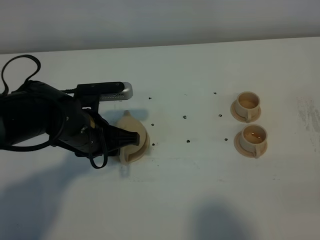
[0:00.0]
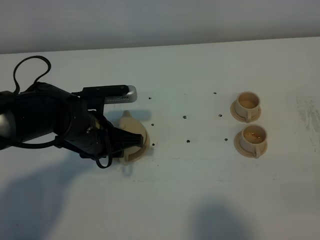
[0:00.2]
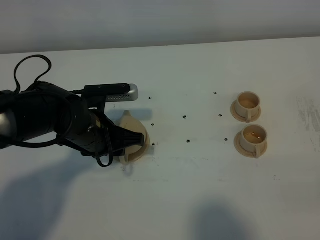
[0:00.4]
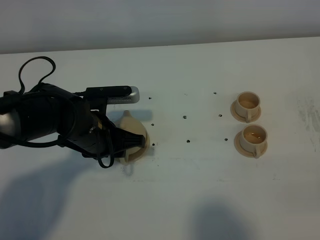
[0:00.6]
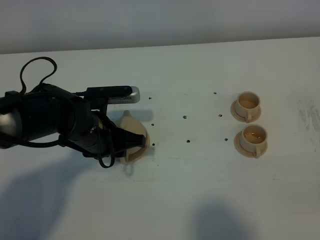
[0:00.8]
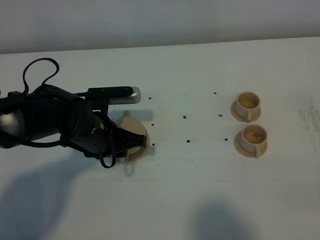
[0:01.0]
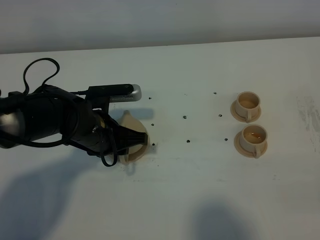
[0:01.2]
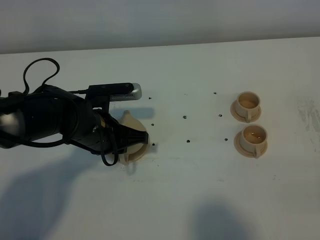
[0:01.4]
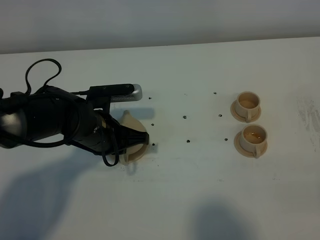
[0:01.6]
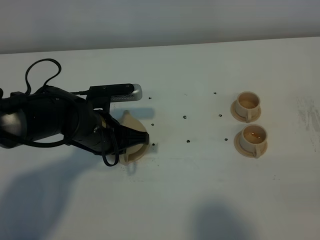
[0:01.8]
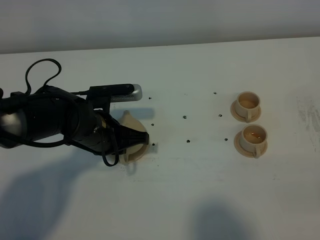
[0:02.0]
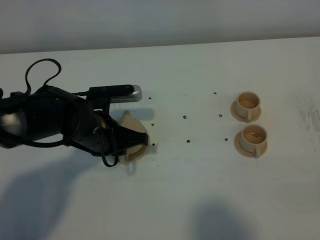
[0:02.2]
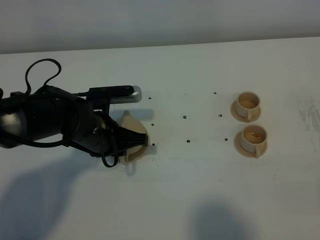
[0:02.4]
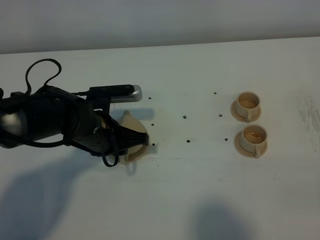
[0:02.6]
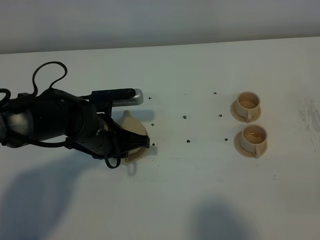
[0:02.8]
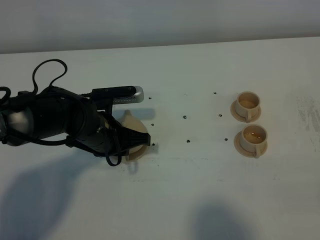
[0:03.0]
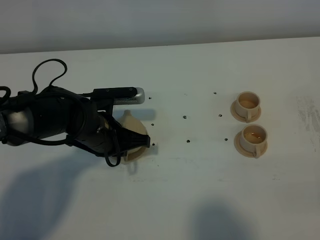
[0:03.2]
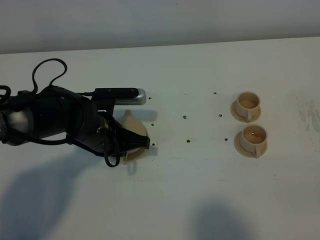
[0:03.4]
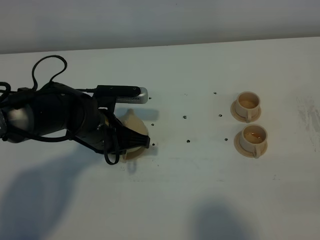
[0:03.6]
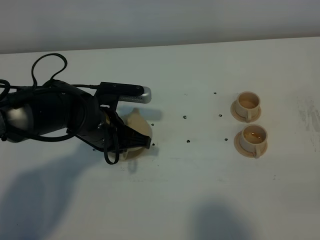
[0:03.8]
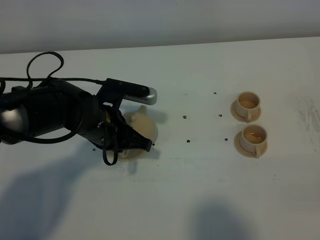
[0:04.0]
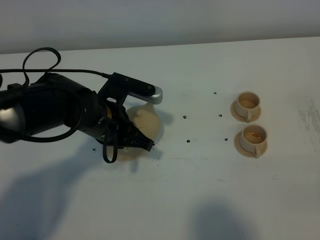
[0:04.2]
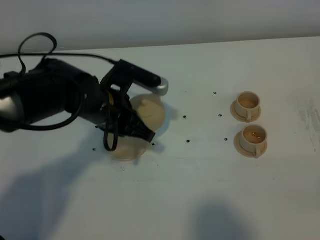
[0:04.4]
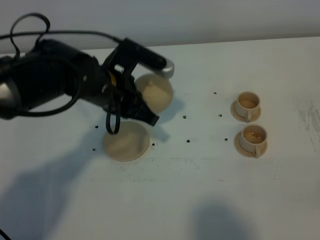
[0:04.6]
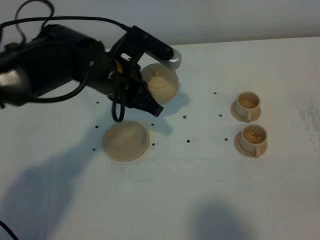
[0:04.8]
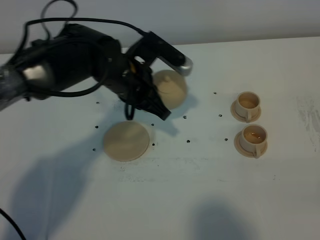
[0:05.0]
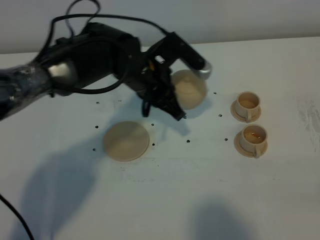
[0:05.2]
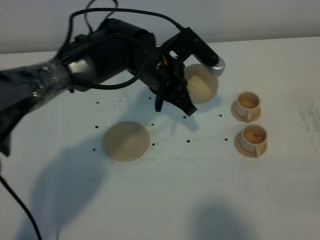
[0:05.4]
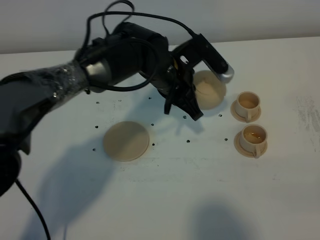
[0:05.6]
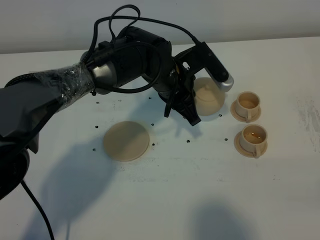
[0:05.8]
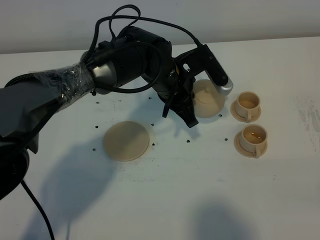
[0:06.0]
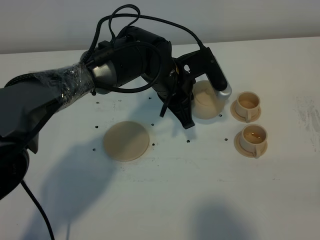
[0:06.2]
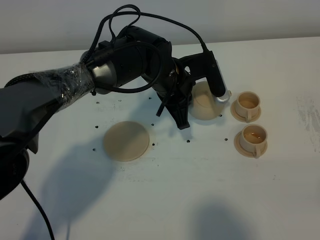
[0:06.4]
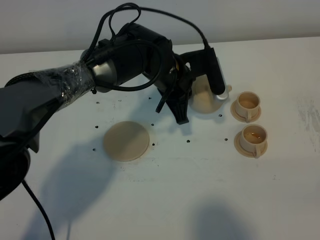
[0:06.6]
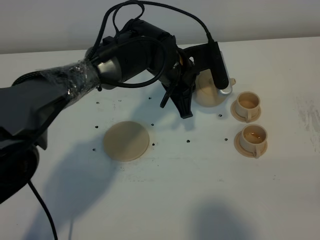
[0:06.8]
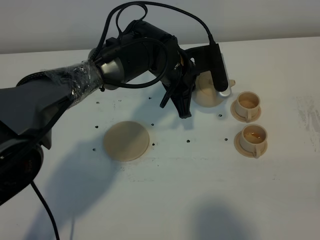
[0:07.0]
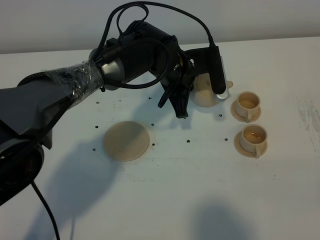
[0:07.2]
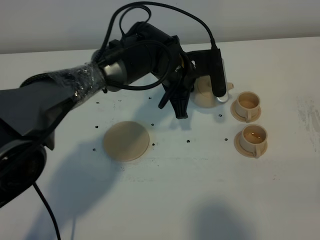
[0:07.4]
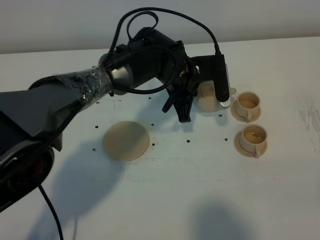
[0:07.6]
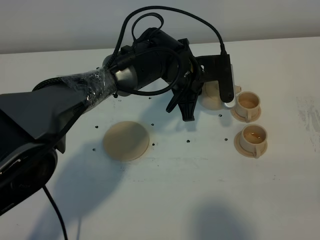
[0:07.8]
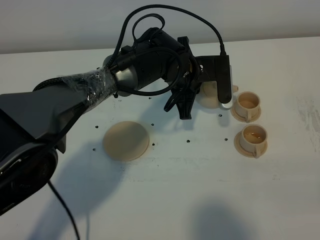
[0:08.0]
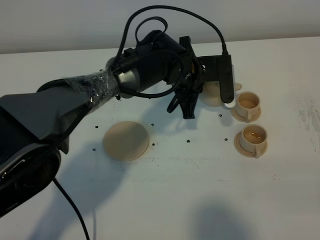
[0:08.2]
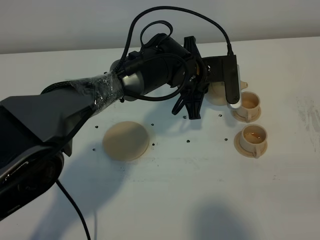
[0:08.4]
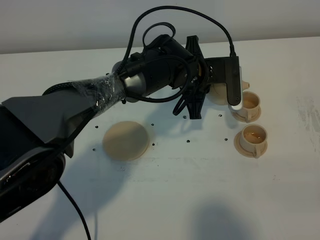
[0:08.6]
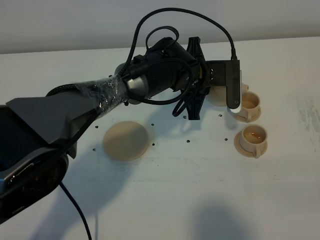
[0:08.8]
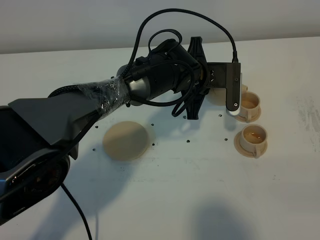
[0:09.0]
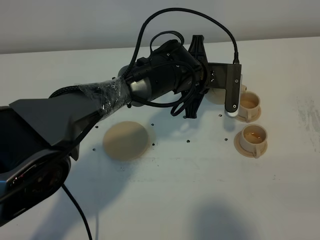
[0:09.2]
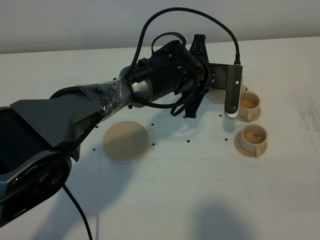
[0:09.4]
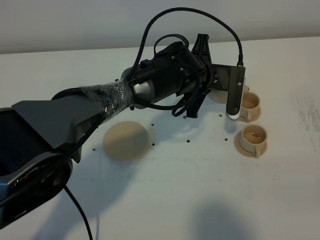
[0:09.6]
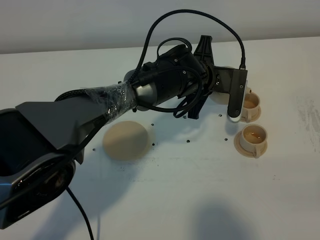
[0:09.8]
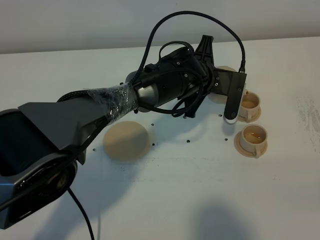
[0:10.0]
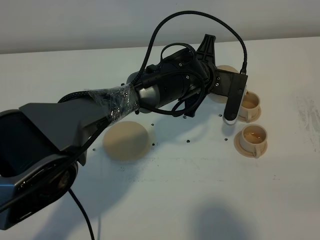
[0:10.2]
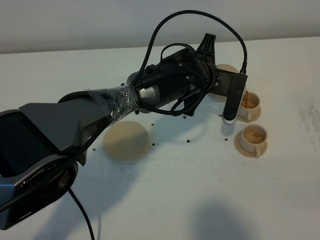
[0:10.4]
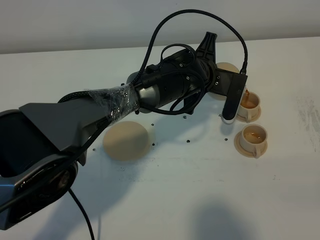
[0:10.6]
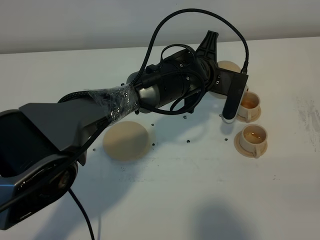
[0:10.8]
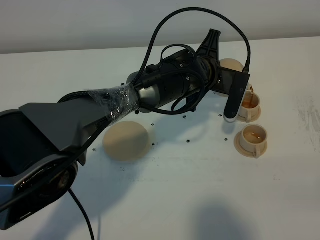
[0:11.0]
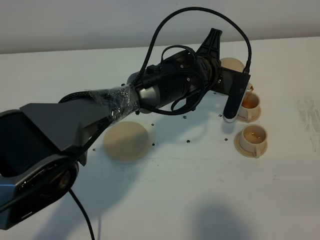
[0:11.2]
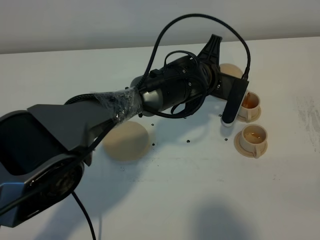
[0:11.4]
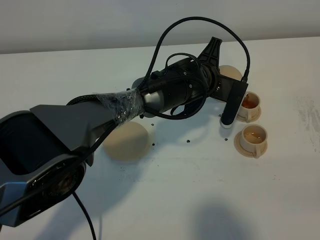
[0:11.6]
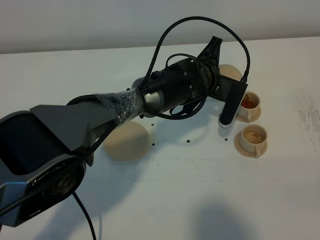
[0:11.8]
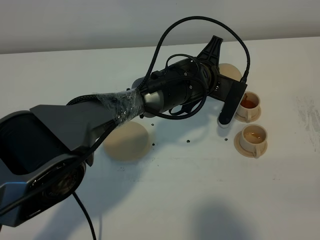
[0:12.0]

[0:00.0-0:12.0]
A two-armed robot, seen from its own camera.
Task of the whole recording: grasp the brown teapot and pour the tea into the two brown teacups one by one, put the brown teapot back in its original place.
Step, 0:00.0 to 0:03.2: Pick up the teapot with the left gripper.
0:00.0 to 0:01.6: The left gripper closes up.
0:01.6 to 0:03.0: Neither gripper changes place.
0:03.0 to 0:04.4: The left gripper moves upward, roughly 5 cm.
0:04.4 to 0:06.0: The left gripper travels to the right and forward by some 10 cm.
0:09.0 to 0:10.4: The grippers make only small movements.
0:10.4 to 0:12.0: The grippers move only a little.

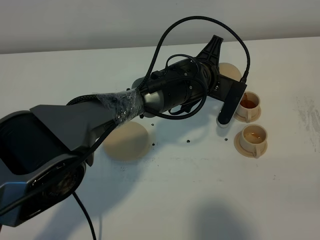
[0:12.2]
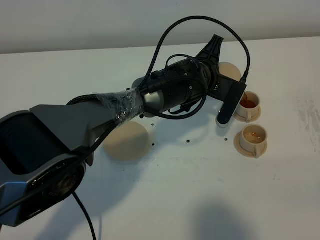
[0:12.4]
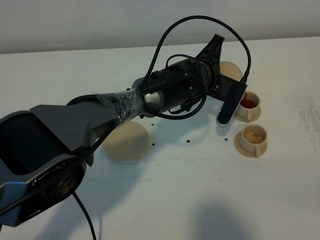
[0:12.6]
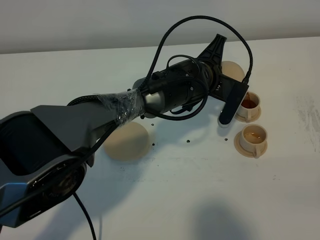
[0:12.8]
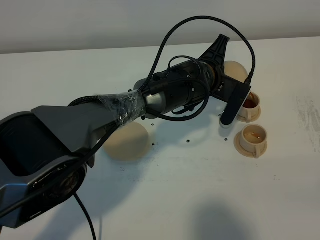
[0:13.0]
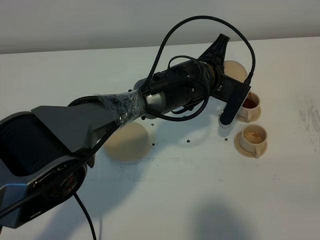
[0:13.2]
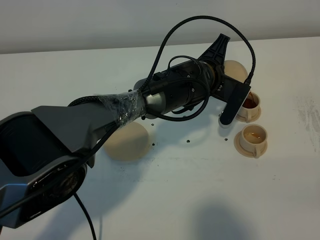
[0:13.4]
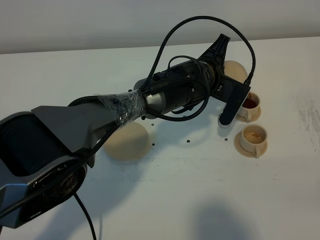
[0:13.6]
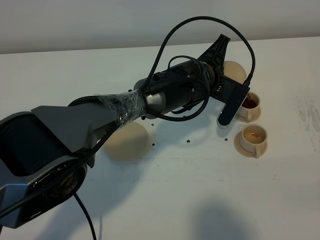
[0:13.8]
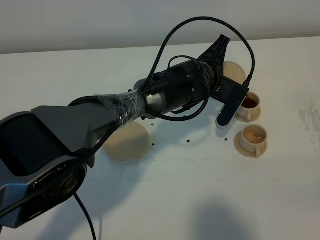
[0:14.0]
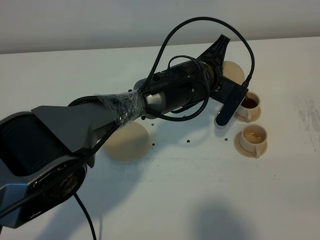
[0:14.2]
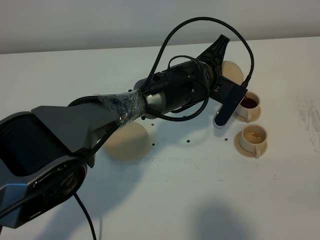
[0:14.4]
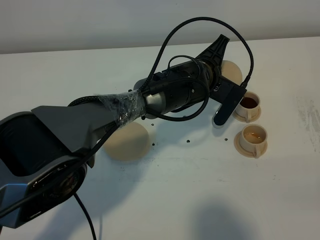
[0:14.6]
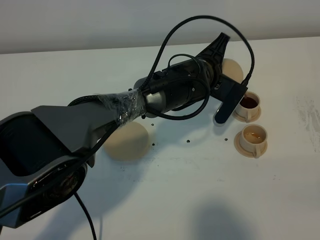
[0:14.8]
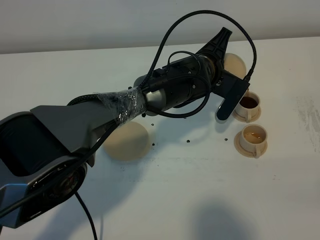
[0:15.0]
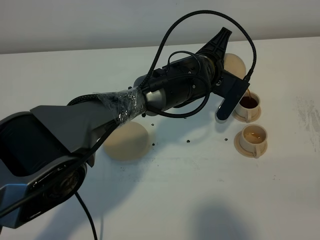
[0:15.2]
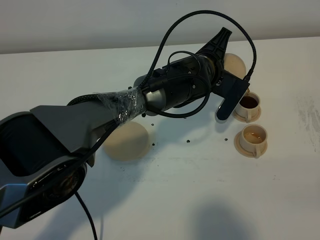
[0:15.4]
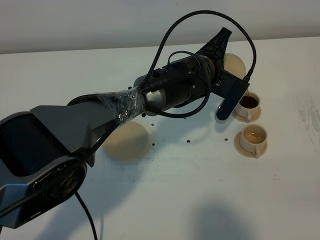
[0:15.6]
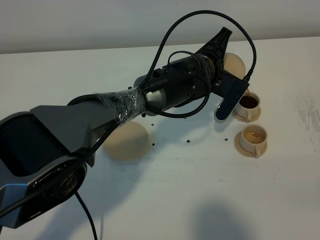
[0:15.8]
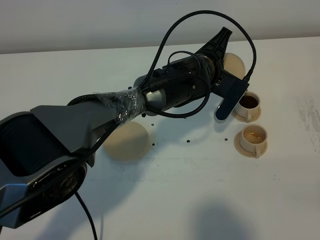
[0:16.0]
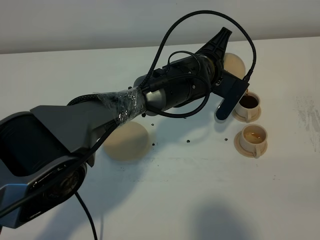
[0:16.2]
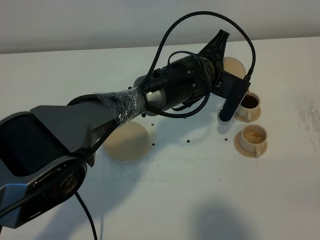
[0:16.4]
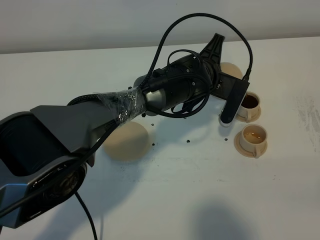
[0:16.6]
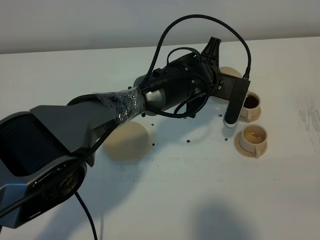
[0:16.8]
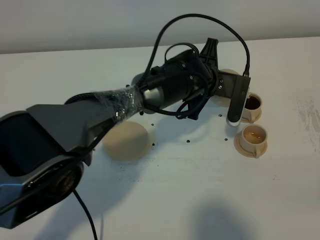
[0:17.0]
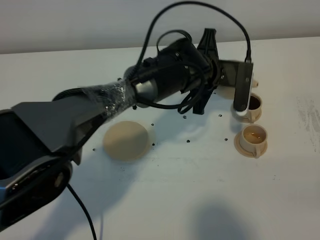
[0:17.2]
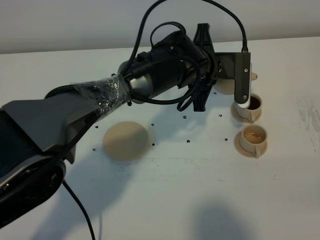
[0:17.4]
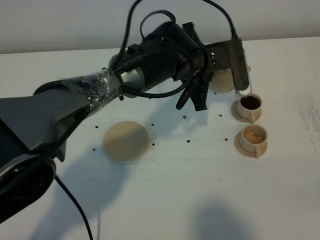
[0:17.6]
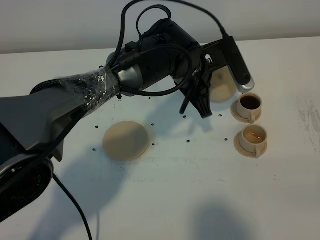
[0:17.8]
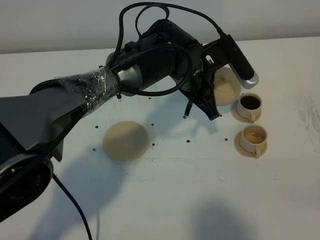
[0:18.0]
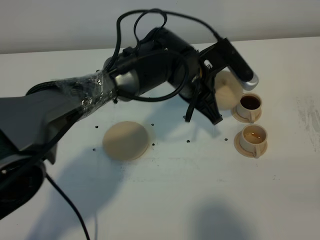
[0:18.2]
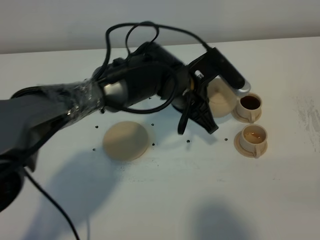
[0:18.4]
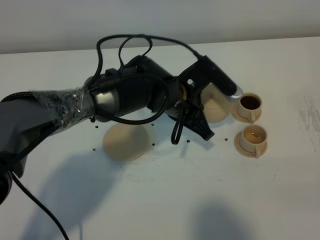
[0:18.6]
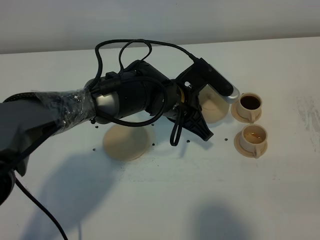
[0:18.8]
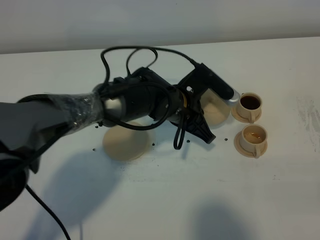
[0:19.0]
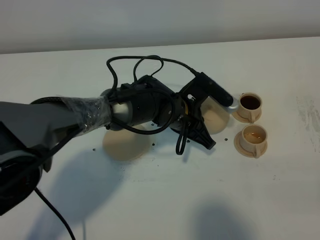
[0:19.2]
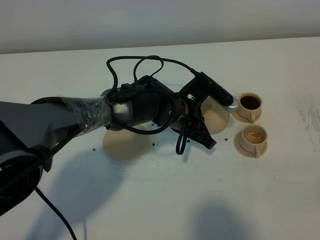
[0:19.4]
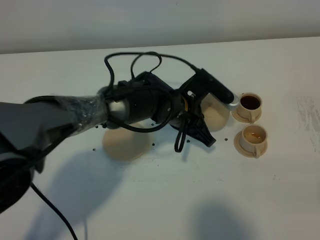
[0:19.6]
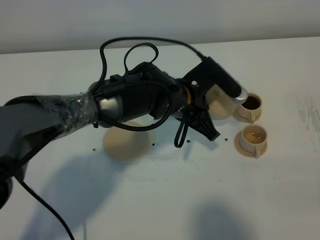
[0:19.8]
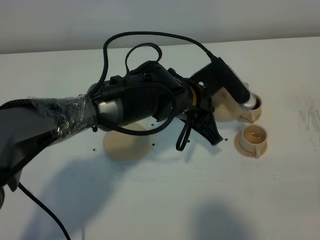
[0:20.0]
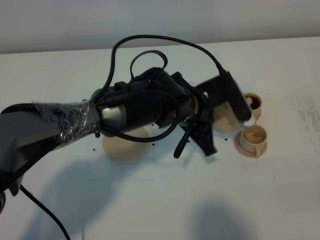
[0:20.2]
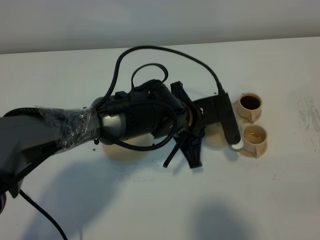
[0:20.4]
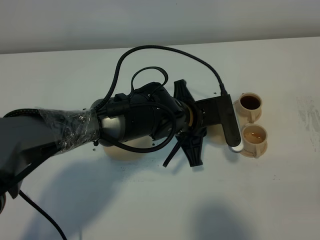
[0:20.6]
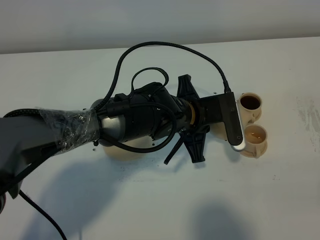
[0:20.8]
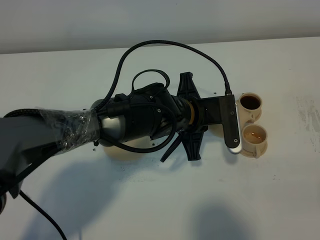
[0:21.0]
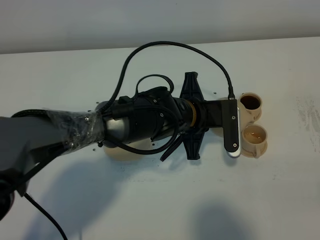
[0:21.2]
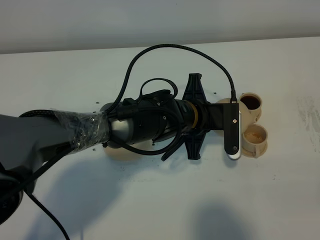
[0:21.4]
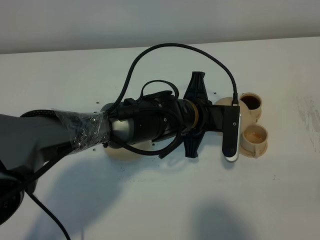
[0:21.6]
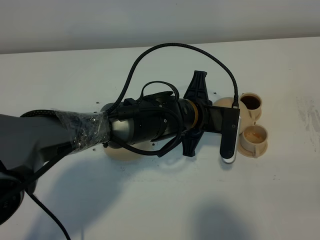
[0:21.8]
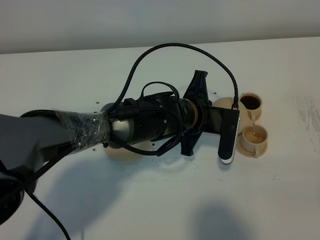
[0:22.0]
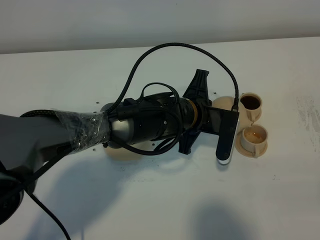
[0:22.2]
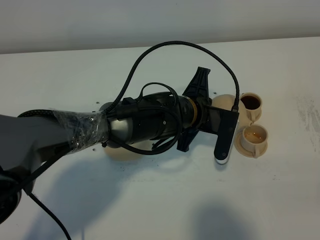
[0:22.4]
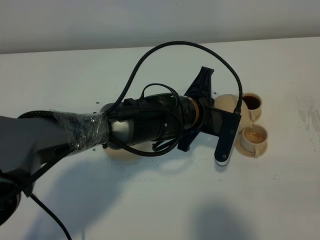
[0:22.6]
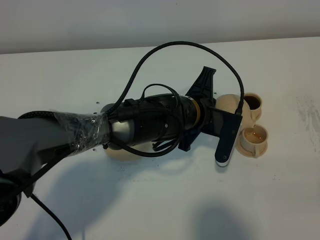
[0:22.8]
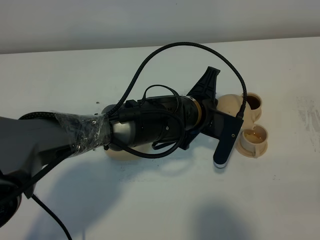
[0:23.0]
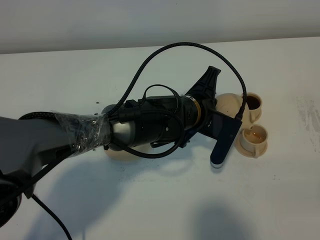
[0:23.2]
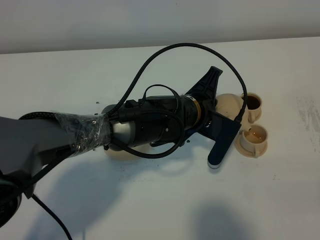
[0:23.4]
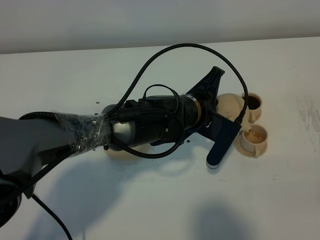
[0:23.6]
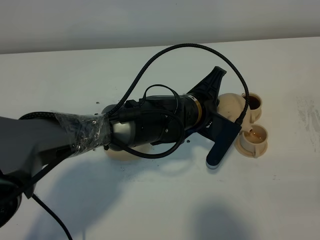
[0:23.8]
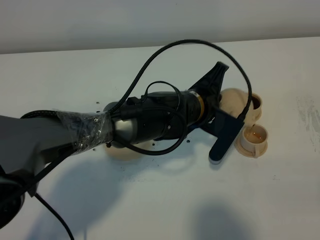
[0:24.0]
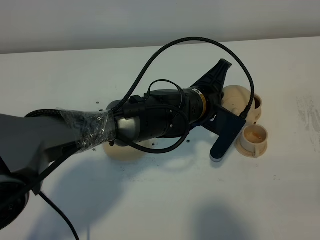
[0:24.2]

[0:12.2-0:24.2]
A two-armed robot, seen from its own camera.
Task of the whole recording: grasp the brown teapot and pour the tea into the two brown teacups one by one, put the brown teapot back in its original place.
Step, 0:12.2 to 0:17.0: Pour tea into the teacup with the left gripper.
0:12.2 to 0:13.8: The grippers move only a little.
0:13.8 to 0:15.2: Both grippers stay about where they are.
0:15.2 to 0:16.6: The grippers move only a little.
0:16.6 to 0:18.2: The left gripper changes place by roughly 5 cm.
0:22.6 to 0:24.2: The grippers make only small movements.
